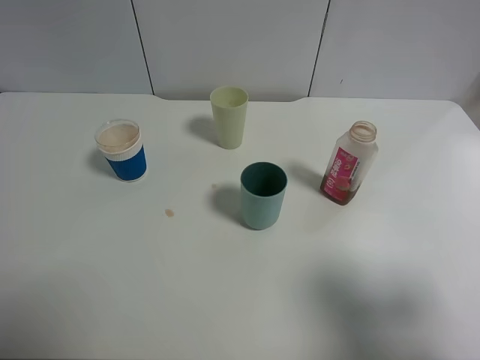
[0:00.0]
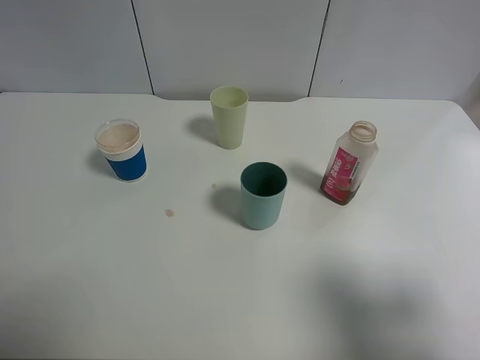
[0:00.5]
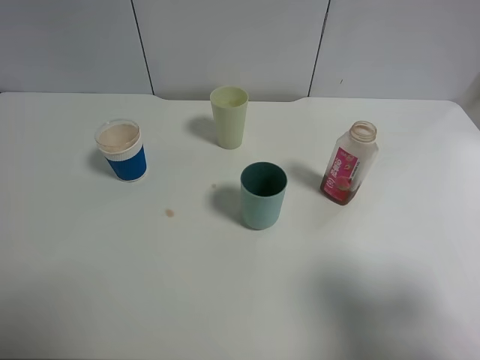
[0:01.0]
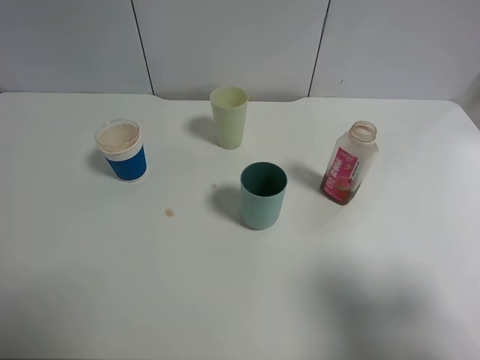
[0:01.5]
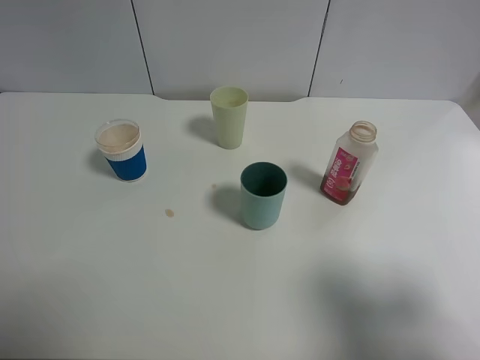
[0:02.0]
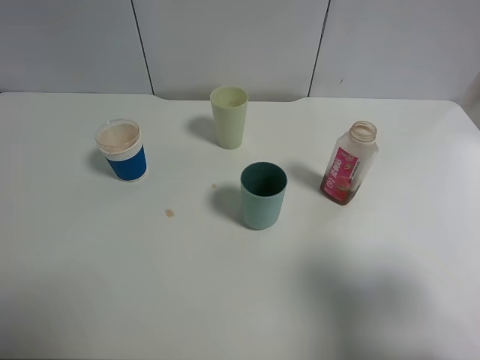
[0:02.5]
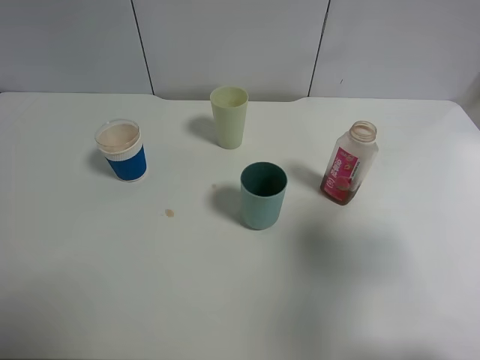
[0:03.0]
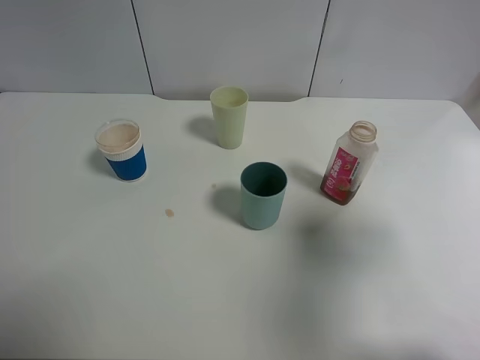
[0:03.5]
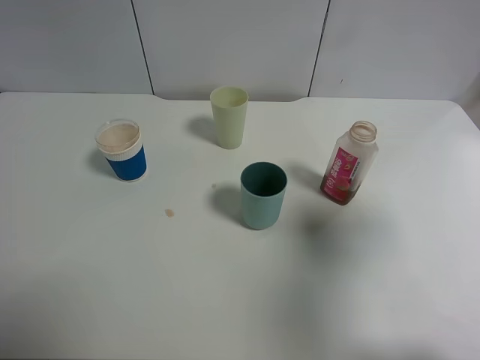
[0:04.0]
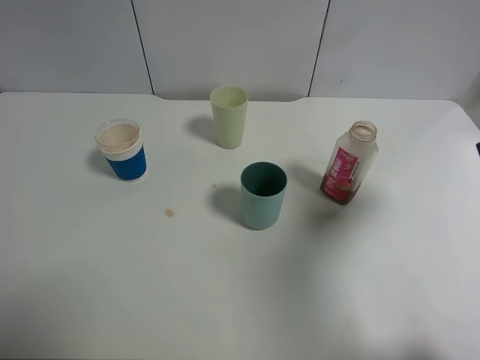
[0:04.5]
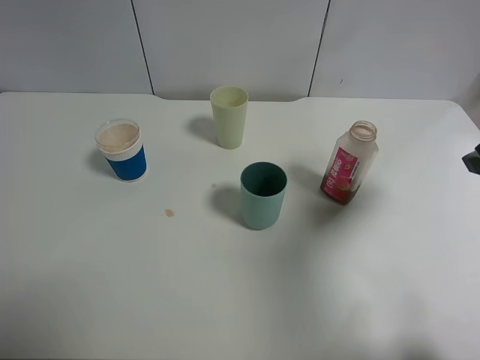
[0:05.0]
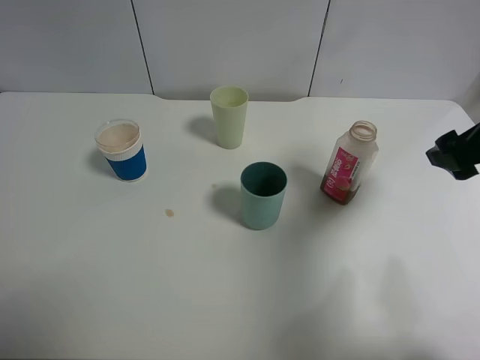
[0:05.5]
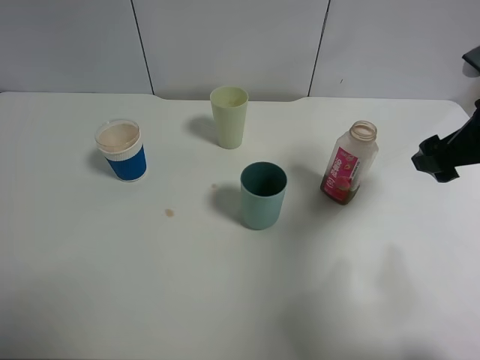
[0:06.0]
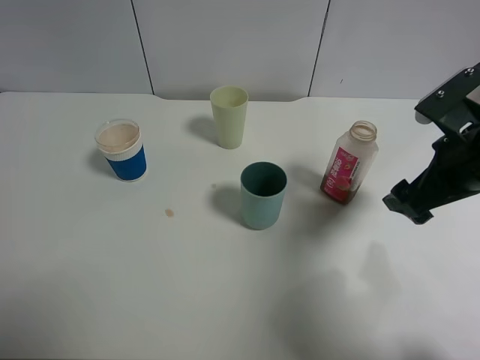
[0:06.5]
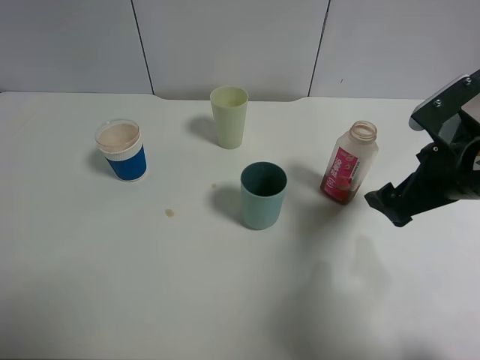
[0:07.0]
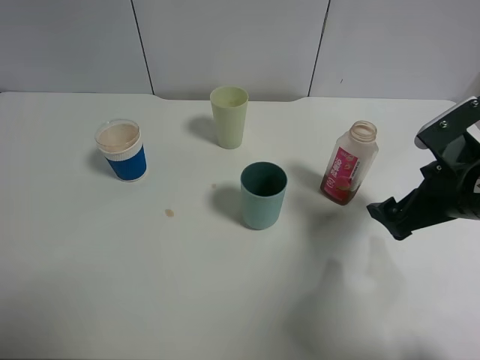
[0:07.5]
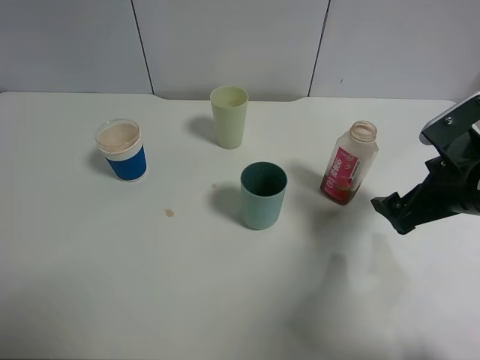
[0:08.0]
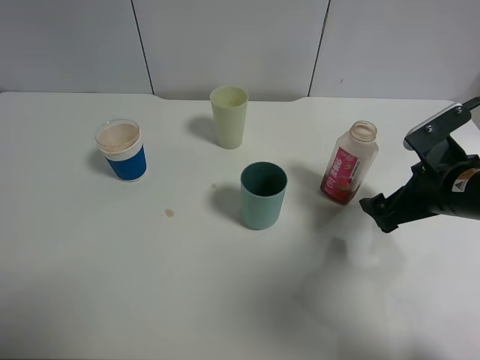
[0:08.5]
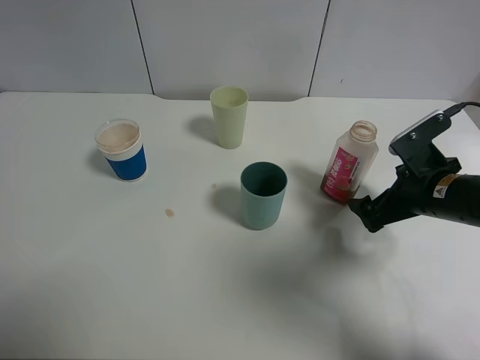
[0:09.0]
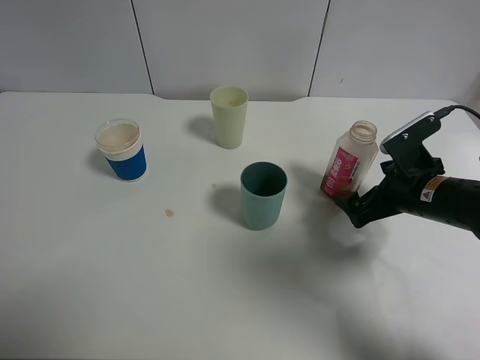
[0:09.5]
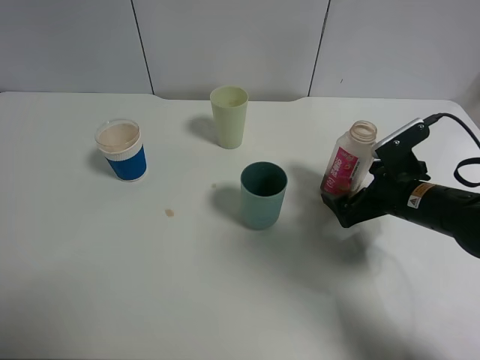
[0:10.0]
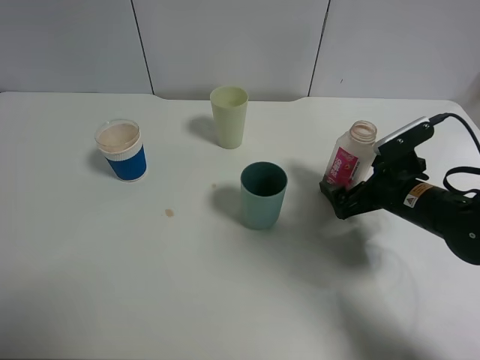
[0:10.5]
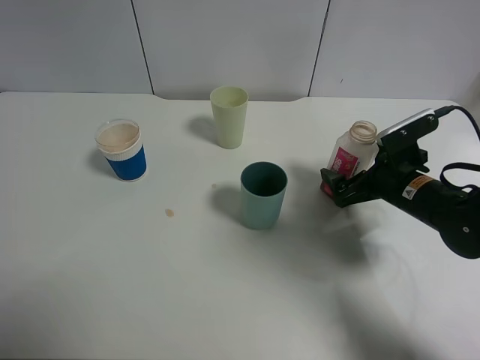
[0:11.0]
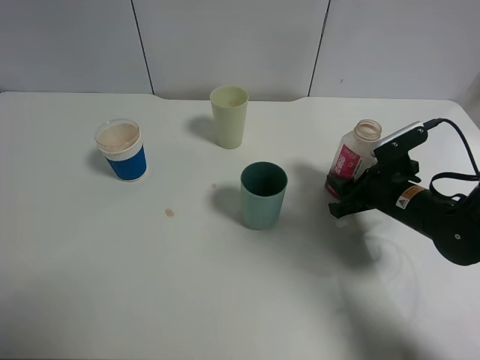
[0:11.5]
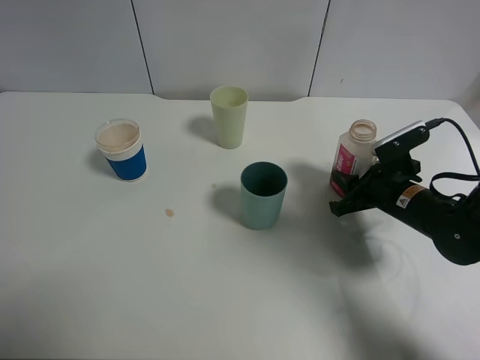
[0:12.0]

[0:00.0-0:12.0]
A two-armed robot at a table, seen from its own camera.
Task of the whole recording: use a clamp to hold the bottle of the drink, pour the beverage into a random cup, then clamp the cup containing the drink and pour the drink into another random cup.
0:00.0 to 0:02.0: Neither gripper changes place.
0:02.0 to 0:04.0: The right gripper is displaced forward by about 10 cm.
0:04.0 to 0:06.0: The right gripper moves forward and downward, some 15 cm.
0:06.0 to 0:08.0: The right gripper heads downward, covering about 10 cm.
0:08.0 to 0:10.0: The right gripper travels downward by roughly 10 cm.
0:10.0 to 0:12.0: The right gripper closes.

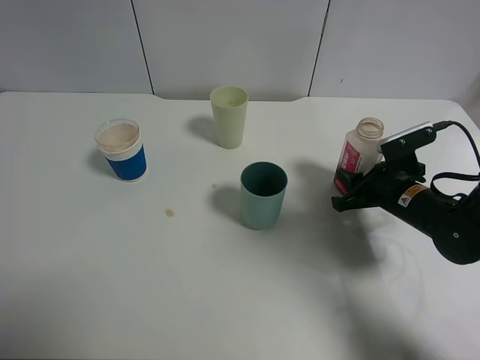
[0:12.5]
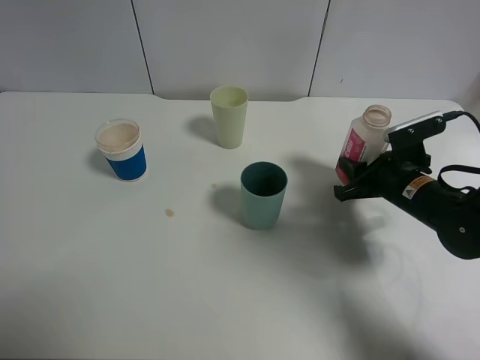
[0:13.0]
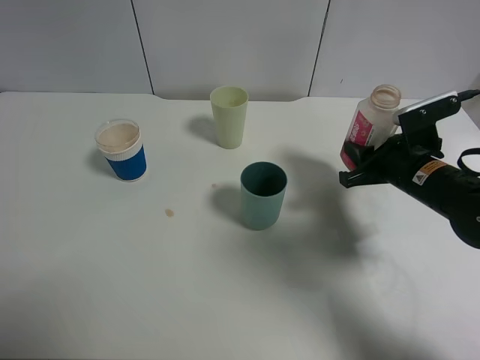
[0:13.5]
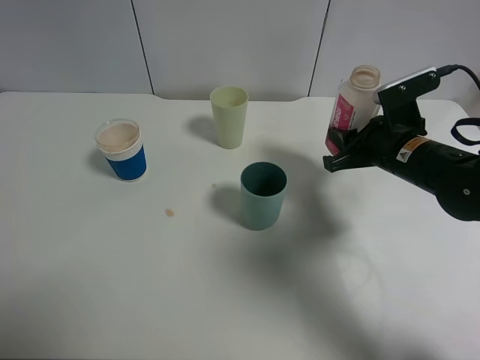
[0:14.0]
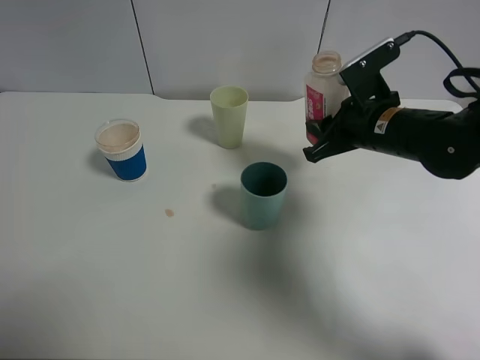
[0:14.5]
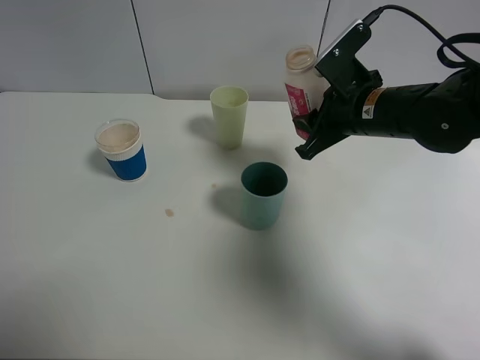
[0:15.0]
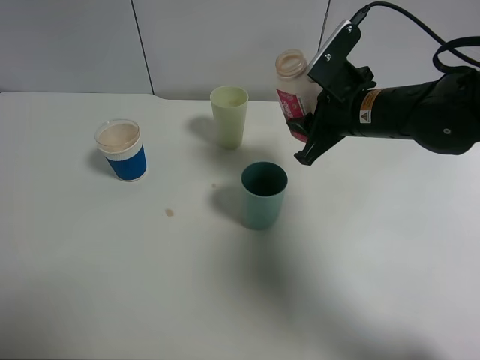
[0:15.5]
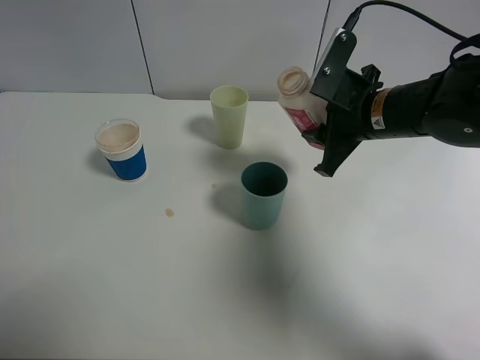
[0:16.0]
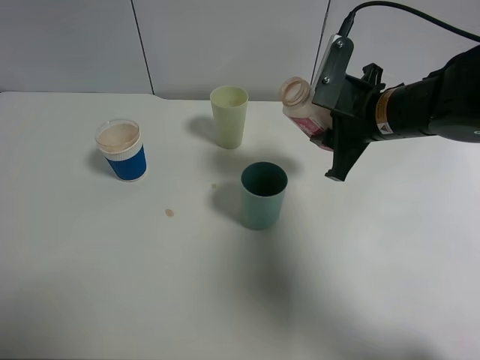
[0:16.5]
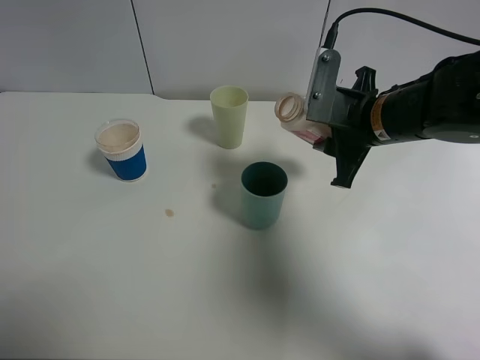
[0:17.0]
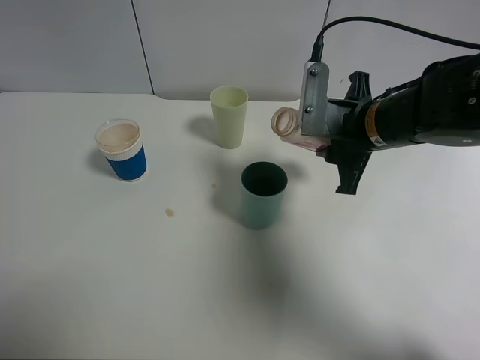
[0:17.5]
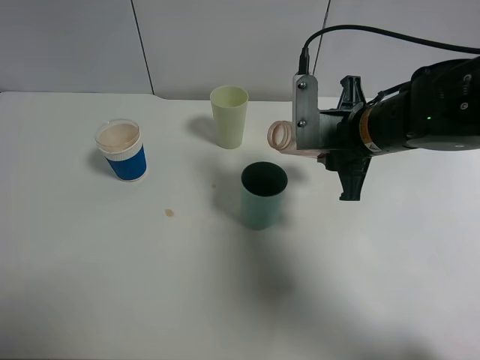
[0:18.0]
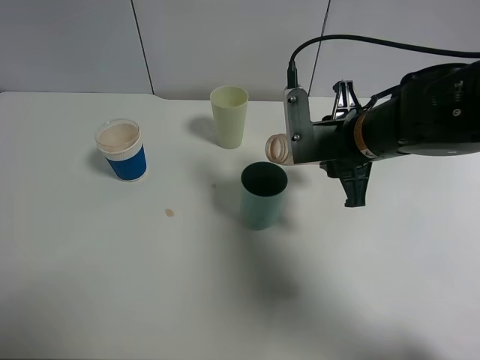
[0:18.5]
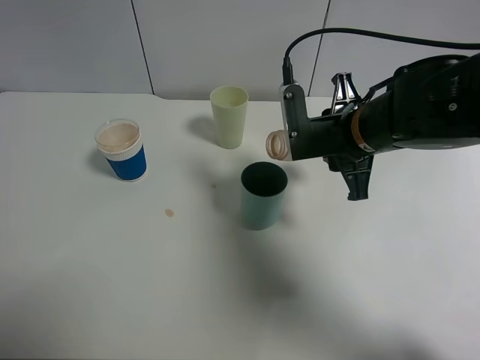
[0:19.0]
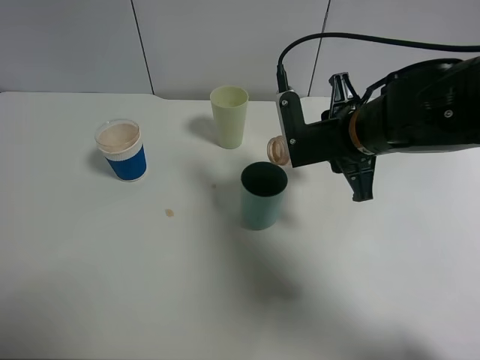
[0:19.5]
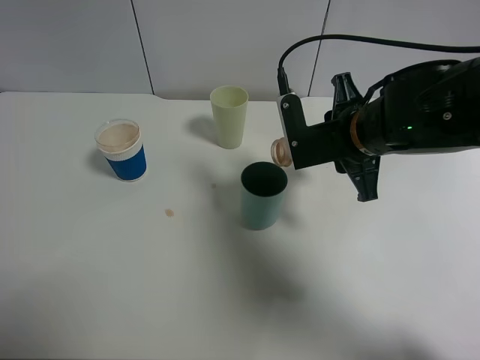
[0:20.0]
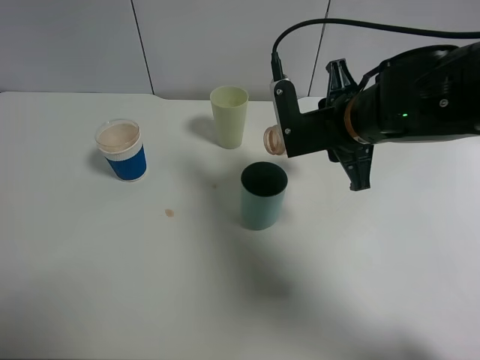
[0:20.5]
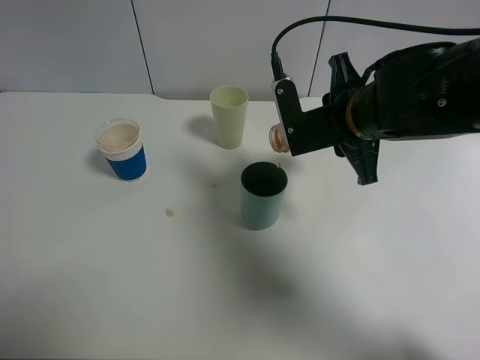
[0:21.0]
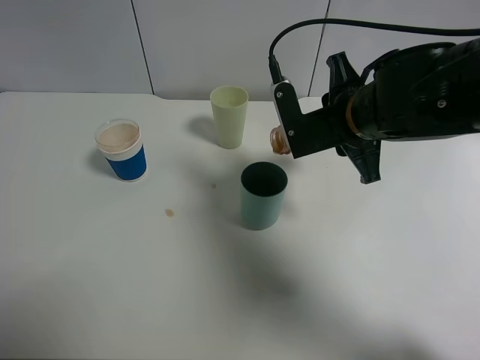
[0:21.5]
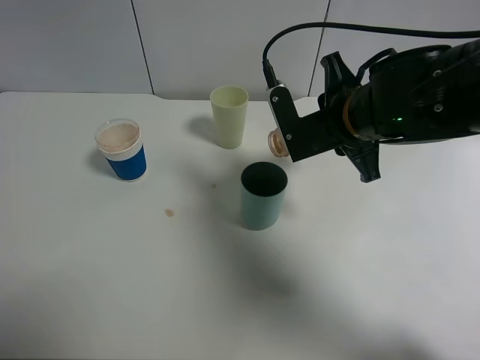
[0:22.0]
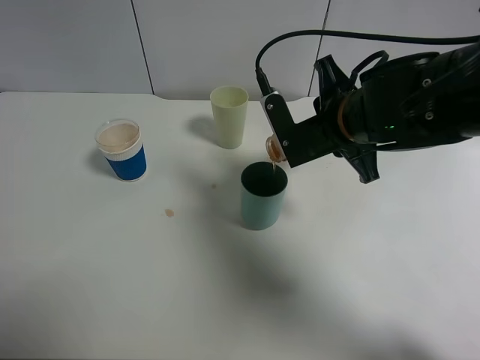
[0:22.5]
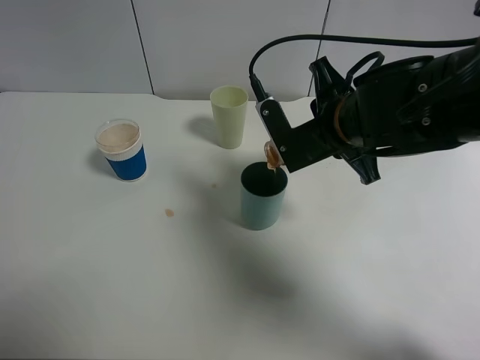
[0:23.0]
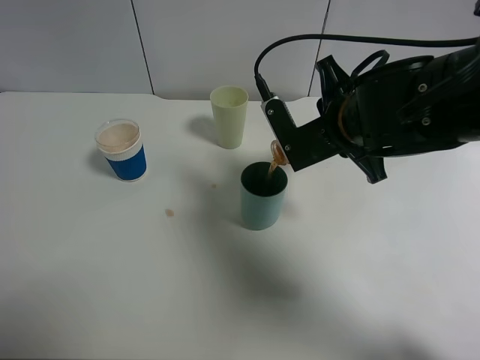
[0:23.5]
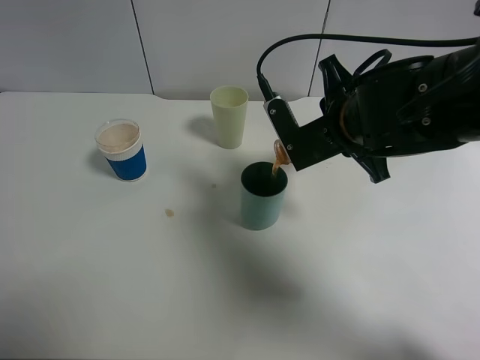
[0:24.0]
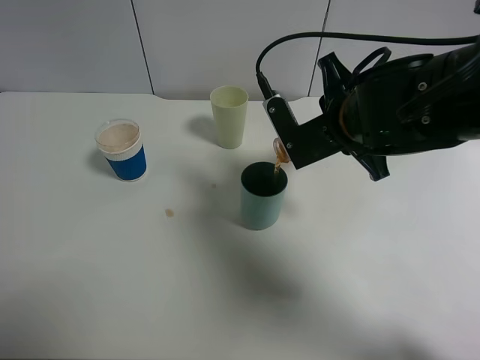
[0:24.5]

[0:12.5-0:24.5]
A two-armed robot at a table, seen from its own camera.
Task of the whole recording: use a clamp to hold the bottle of the drink, pour the beverage into a random cup, then clamp the cup containing the drink and pour the drink into another random cup.
0:12.5 to 0:14.5: The right gripper moves upward and to the left, approximately 10 cm.
0:18.5 to 0:20.5: The grippers move only a little.
0:20.5 to 0:24.5: The grippers move only a little.

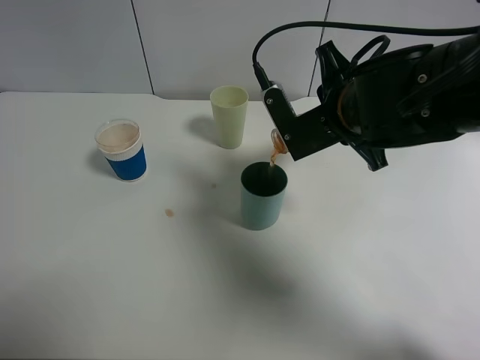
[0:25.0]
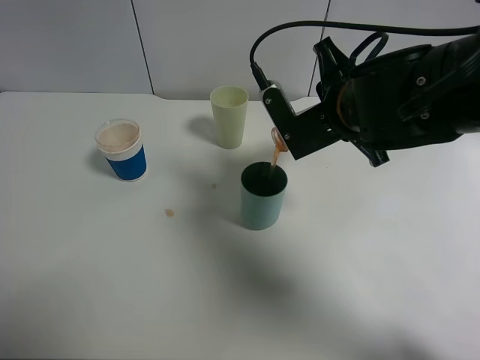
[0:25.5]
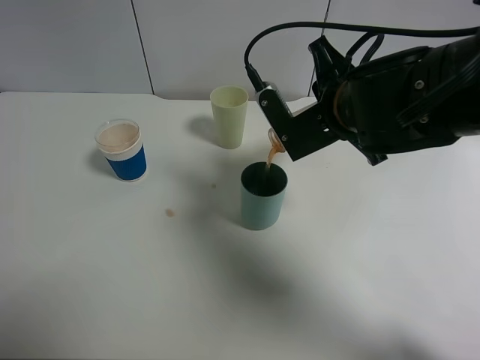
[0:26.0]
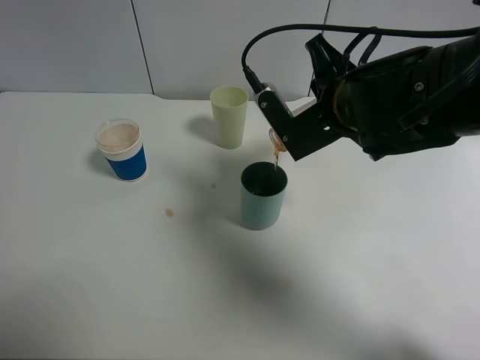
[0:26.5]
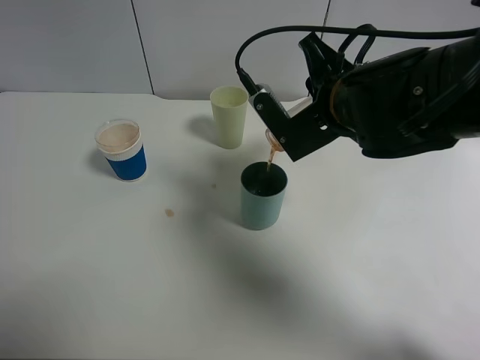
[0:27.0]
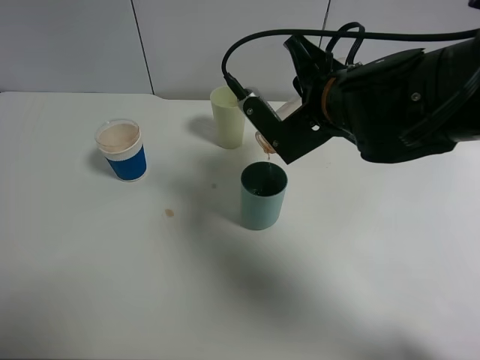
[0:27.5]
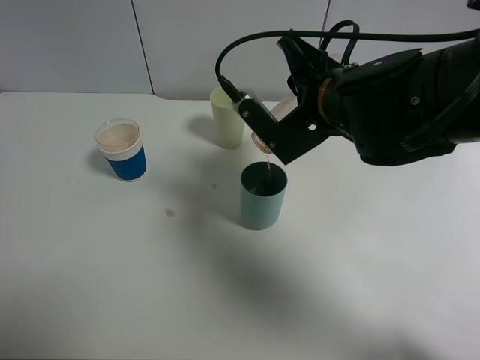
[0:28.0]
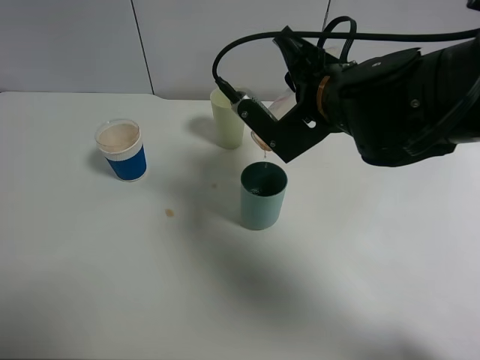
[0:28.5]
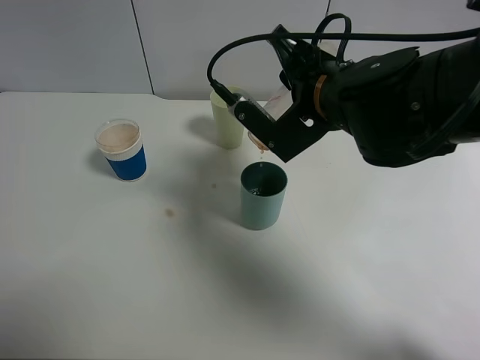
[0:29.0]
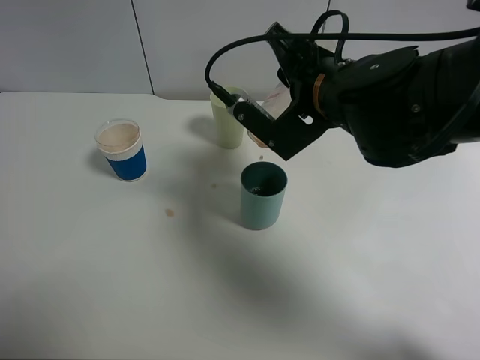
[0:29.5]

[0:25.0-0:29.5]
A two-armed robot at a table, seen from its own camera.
Task of the whole recording: use a clamp to hold the bottle of the drink, pour the beverage into a random cup, then clamp the cup containing the drink and pour the drink into another random cup.
0:25.0 to 0:27.0: There are only small adjustments of the grippers.
0:27.0 to 0:29.5: The grippers move only a little.
